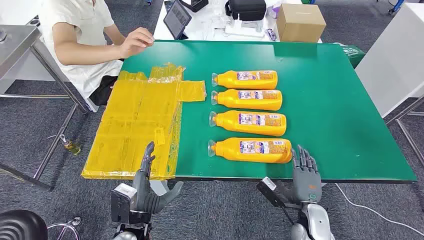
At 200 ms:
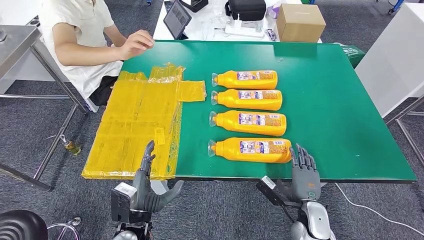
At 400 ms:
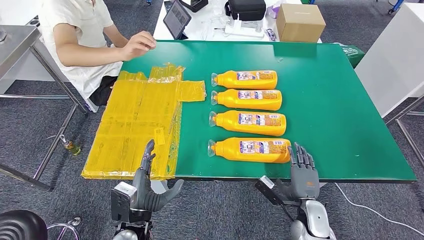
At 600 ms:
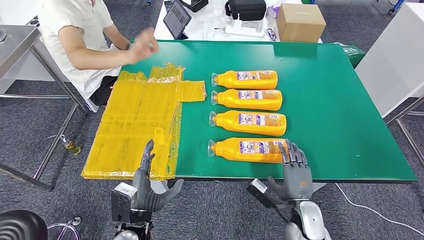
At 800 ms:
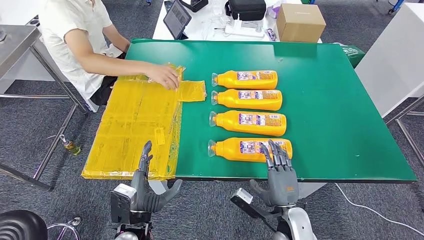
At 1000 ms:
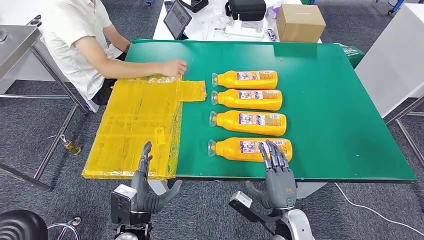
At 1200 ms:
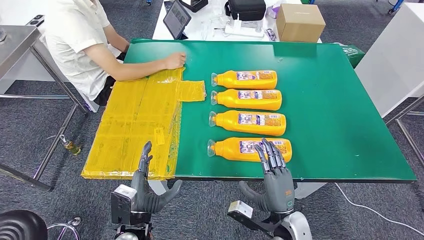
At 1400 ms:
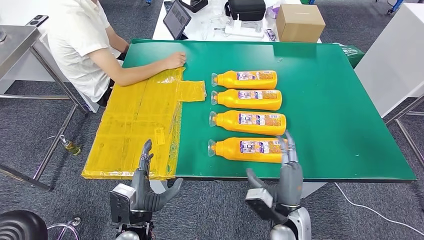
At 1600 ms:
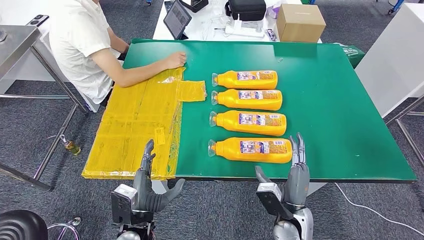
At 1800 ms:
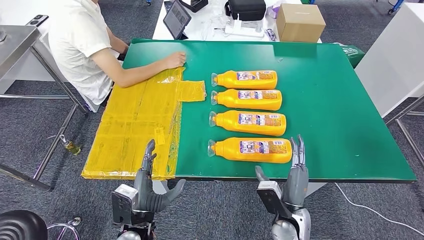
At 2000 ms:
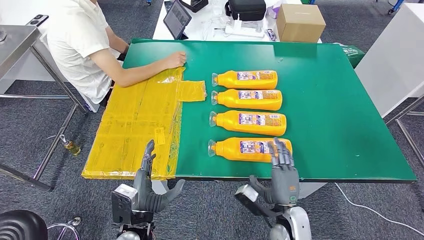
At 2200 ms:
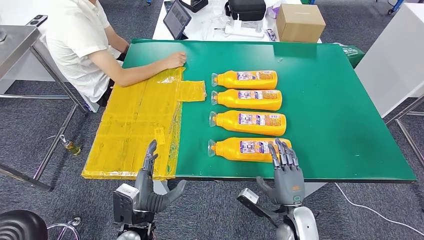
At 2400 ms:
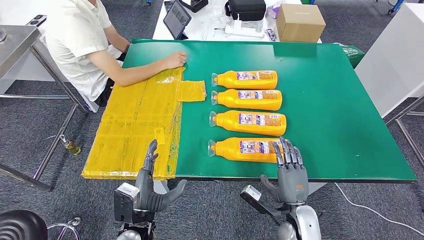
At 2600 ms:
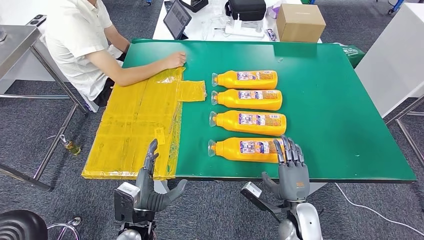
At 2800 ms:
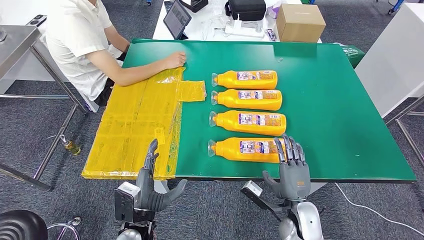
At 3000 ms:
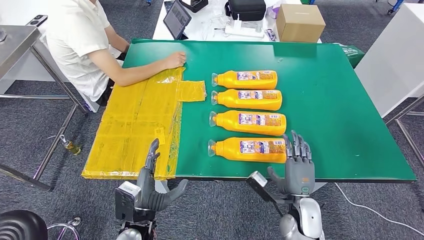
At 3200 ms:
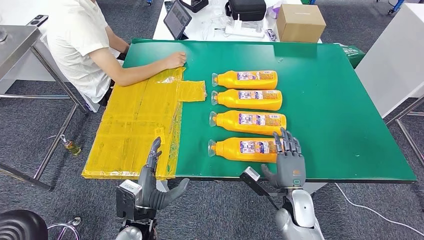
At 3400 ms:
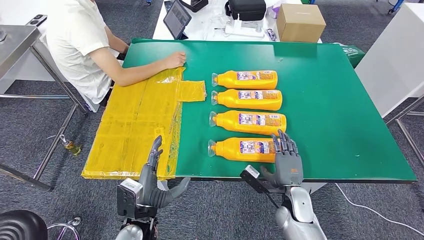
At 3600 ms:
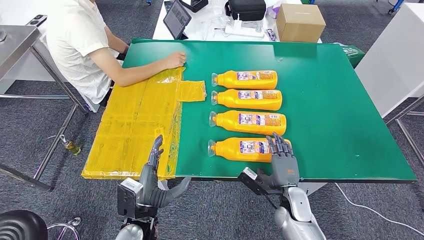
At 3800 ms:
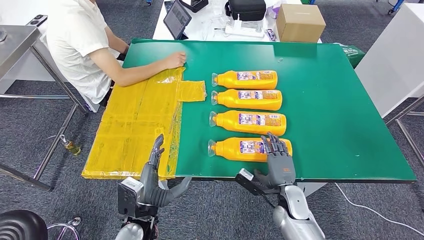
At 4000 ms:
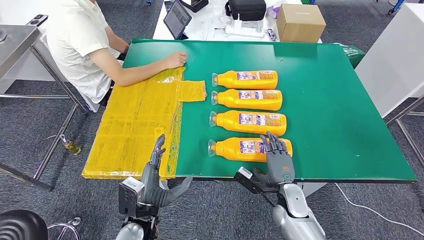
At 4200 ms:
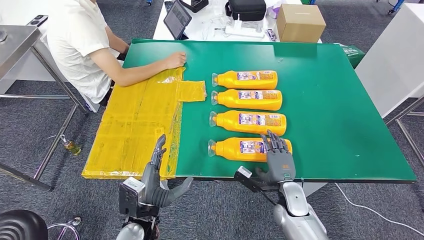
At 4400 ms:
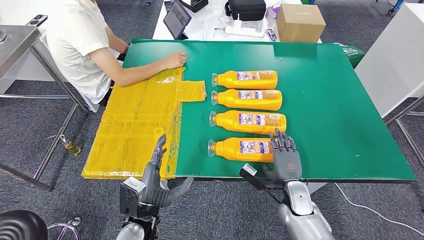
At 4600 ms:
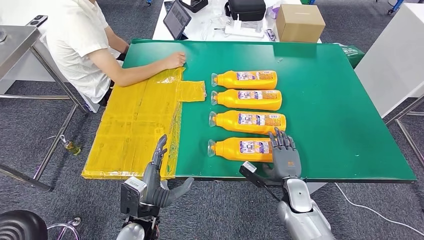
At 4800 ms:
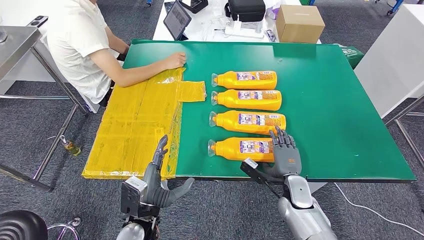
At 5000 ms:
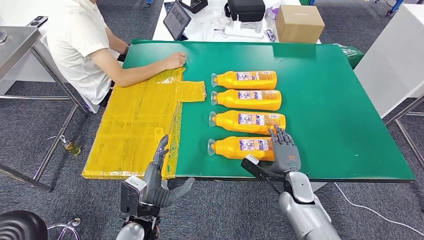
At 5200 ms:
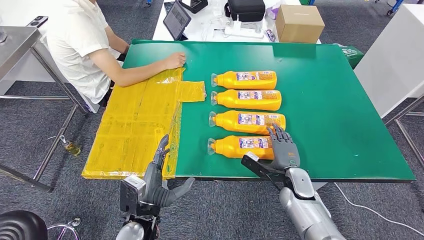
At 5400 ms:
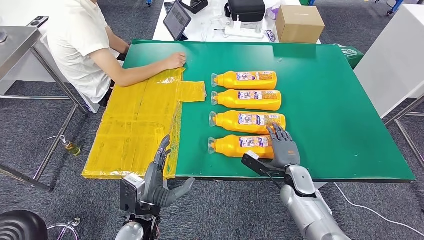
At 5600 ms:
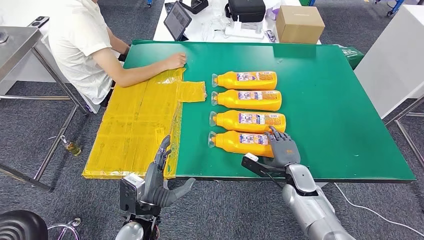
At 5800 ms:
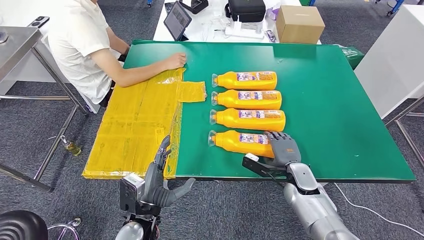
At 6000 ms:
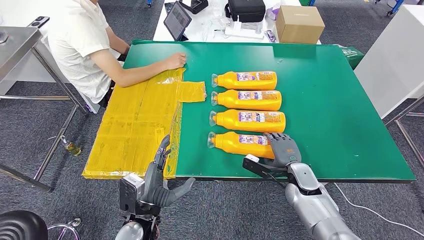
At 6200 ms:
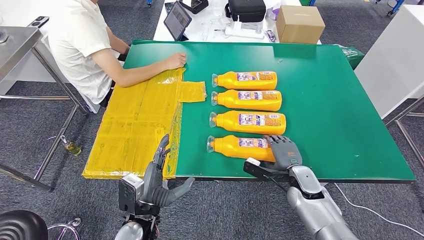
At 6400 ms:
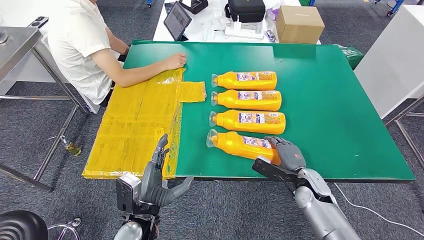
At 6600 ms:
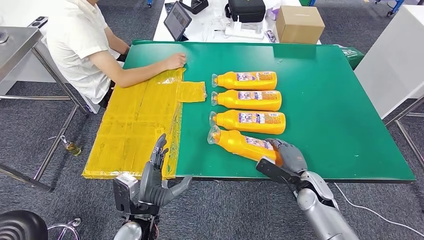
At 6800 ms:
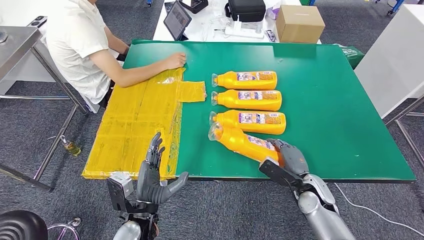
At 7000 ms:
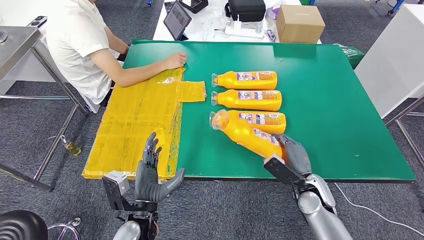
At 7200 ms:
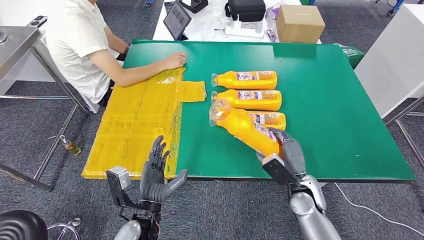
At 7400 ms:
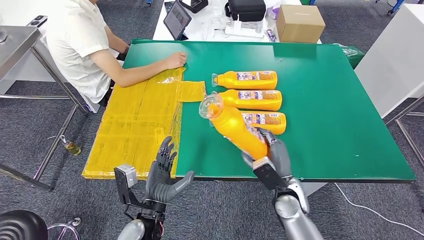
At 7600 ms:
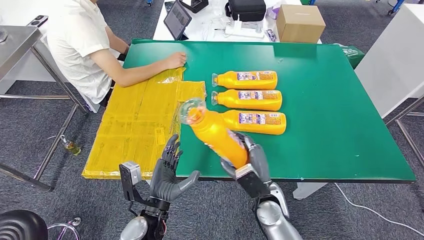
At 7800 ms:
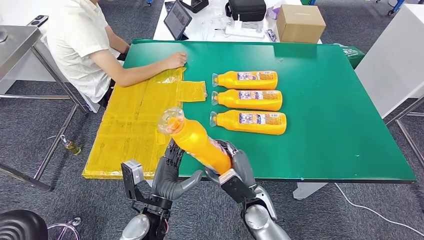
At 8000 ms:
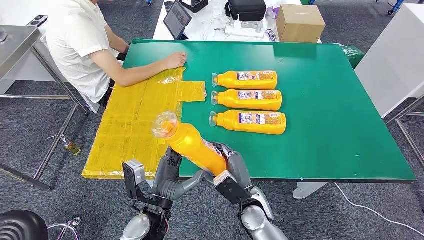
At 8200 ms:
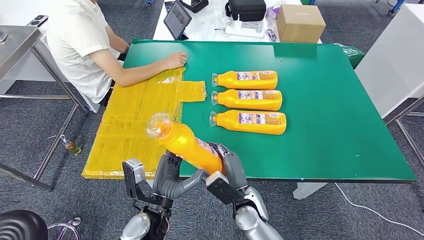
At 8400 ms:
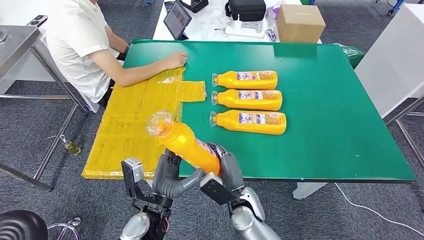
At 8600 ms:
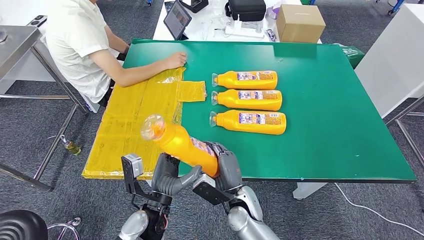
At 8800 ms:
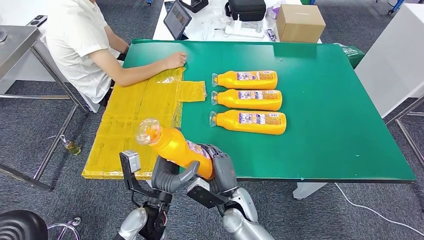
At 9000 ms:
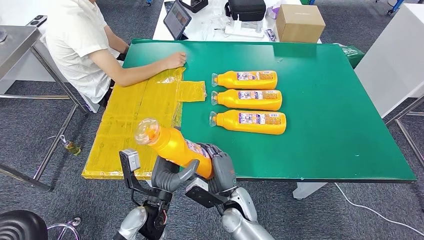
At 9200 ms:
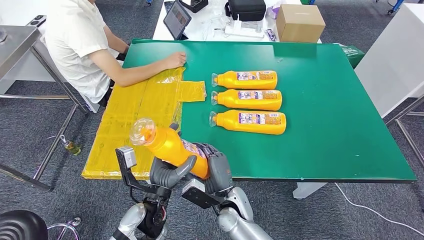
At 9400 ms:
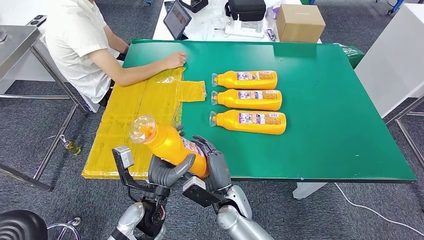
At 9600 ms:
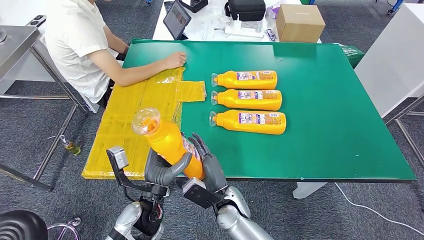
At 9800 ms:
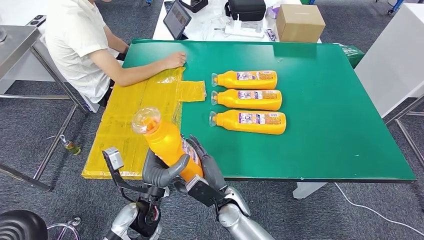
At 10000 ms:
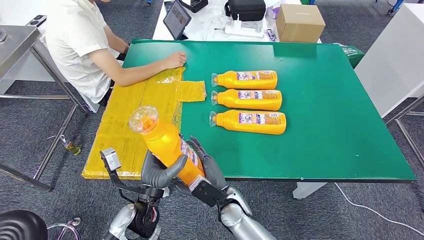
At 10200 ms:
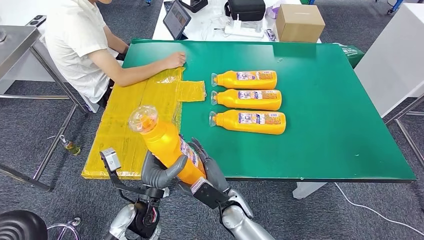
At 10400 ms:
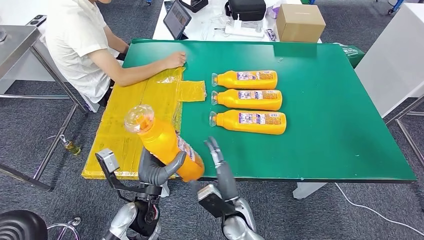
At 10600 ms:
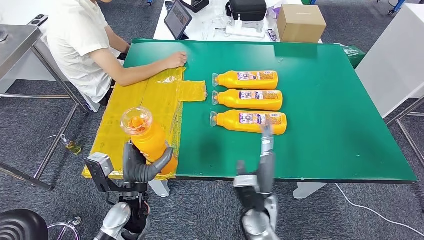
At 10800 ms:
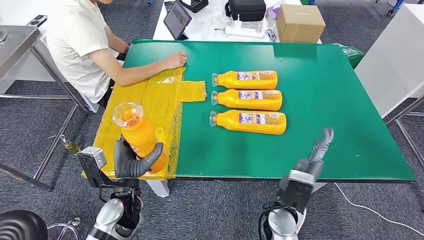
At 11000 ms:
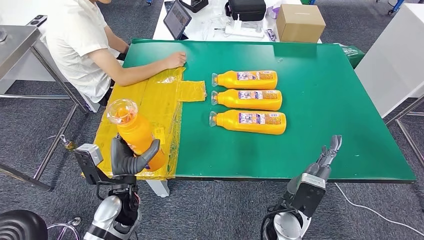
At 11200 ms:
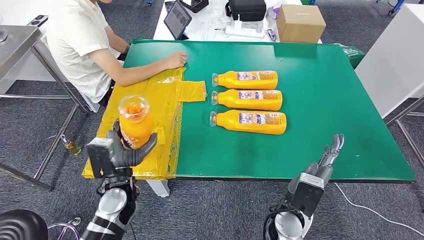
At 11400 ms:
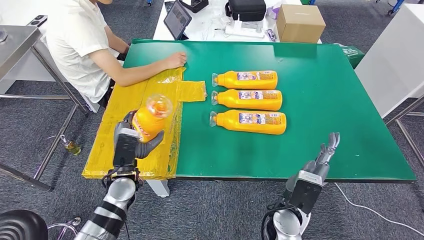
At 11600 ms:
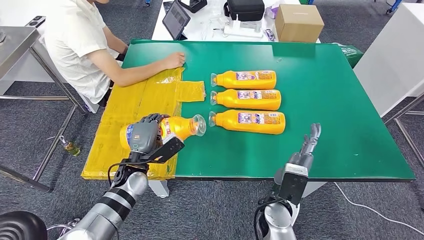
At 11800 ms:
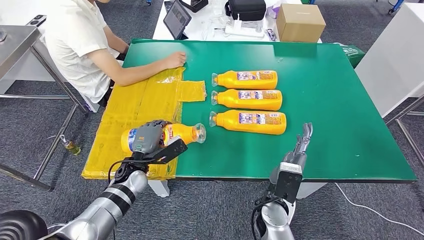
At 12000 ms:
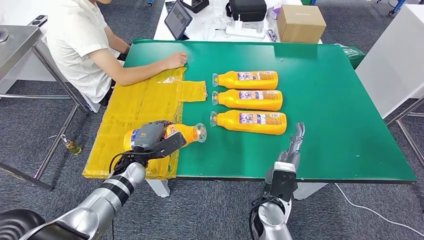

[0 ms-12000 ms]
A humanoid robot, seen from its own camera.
Step, 0 ms to 7000 ms: Take the fast-moving consumer goods bottle from the table.
3000 ms to 4400 ms: The right hand shifts by roughly 5 cm.
4400 ms to 6000 ms: The right hand moves roughly 5 cm.
6000 ms to 7600 ms: The right hand moves to the left and backward, approximately 15 cm.
7600 ms to 9000 ms: The right hand heads to the left, covering some 10 cm.
10400 ms to 12000 ms: The right hand travels to the right and upward by some 10 cm. Meanwhile the left hand is displaced forward and to the left by some 15 cm.

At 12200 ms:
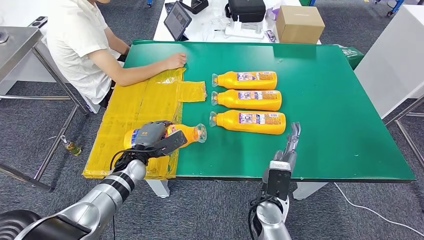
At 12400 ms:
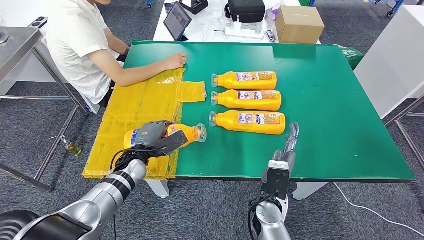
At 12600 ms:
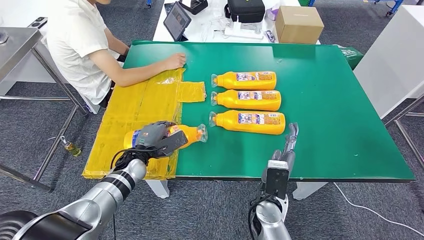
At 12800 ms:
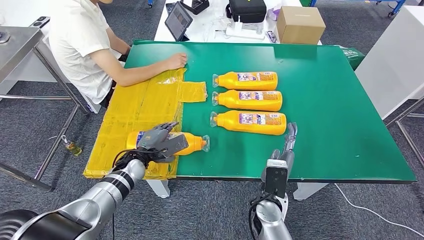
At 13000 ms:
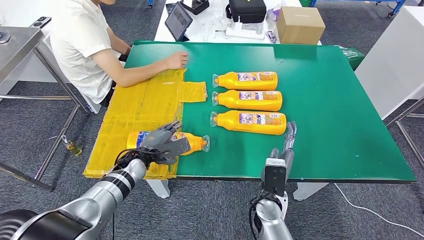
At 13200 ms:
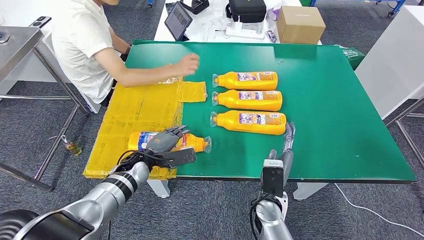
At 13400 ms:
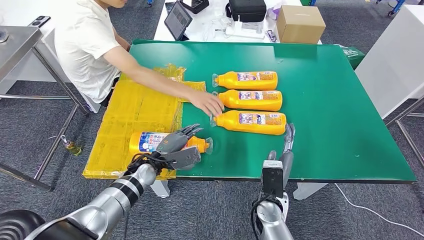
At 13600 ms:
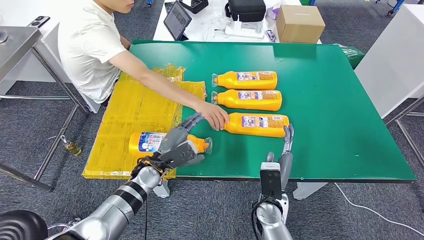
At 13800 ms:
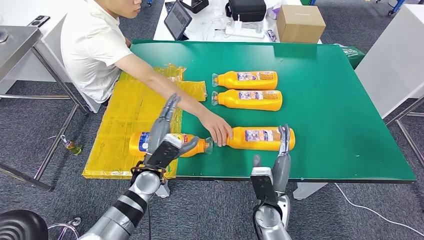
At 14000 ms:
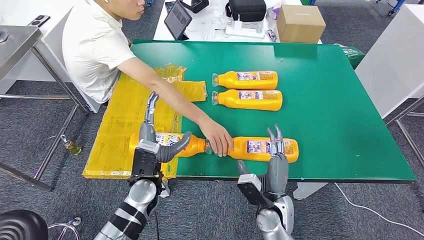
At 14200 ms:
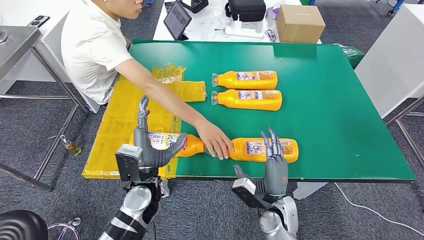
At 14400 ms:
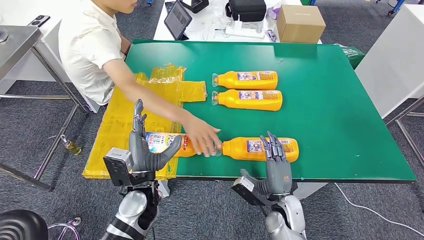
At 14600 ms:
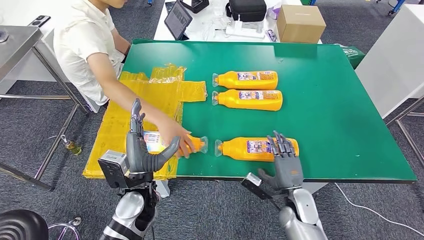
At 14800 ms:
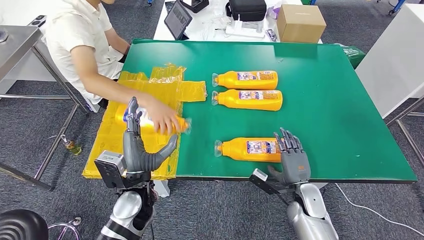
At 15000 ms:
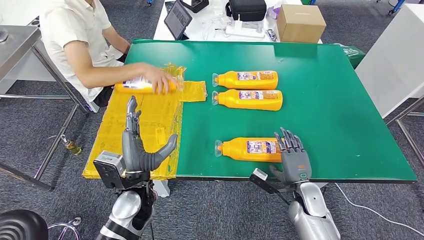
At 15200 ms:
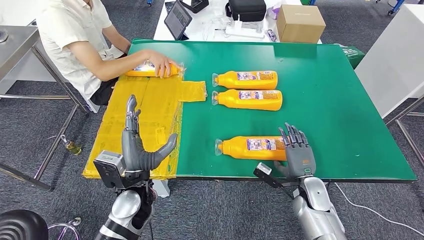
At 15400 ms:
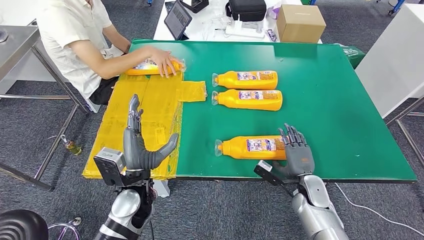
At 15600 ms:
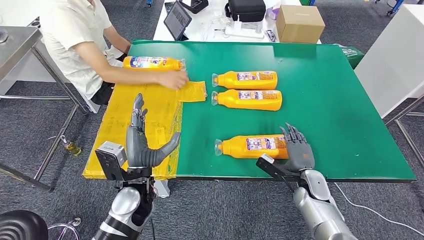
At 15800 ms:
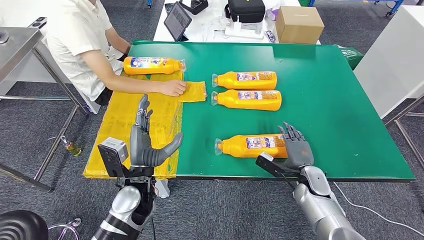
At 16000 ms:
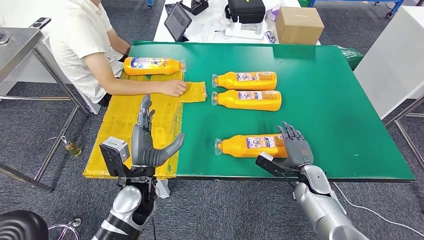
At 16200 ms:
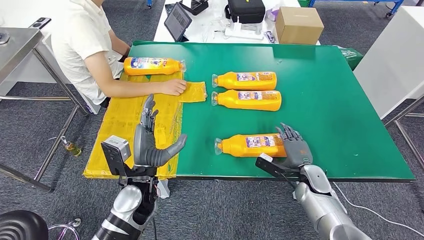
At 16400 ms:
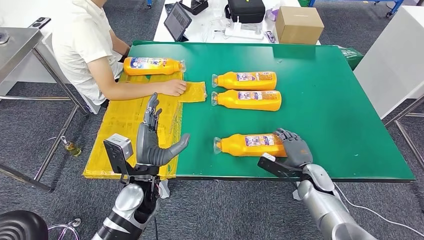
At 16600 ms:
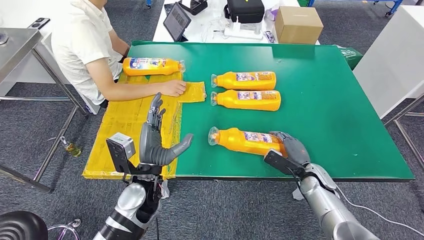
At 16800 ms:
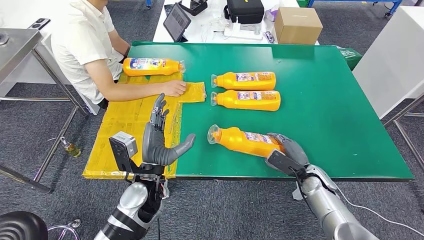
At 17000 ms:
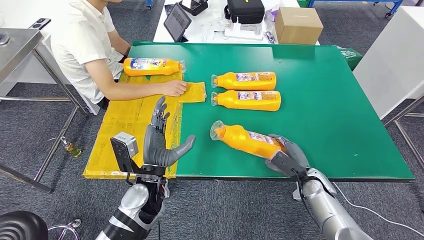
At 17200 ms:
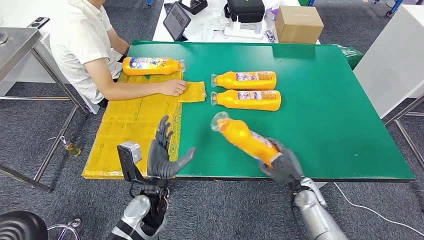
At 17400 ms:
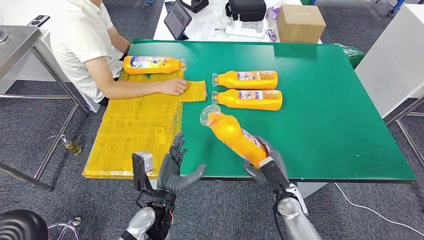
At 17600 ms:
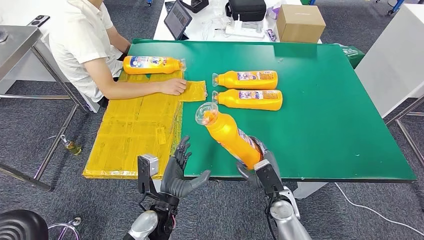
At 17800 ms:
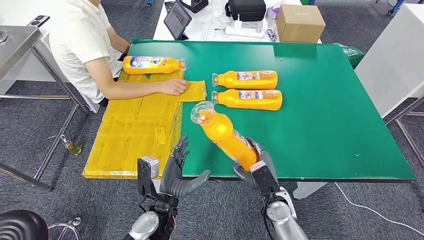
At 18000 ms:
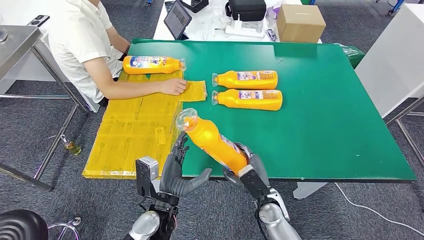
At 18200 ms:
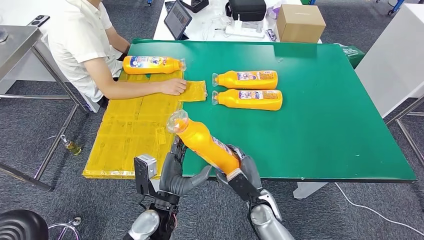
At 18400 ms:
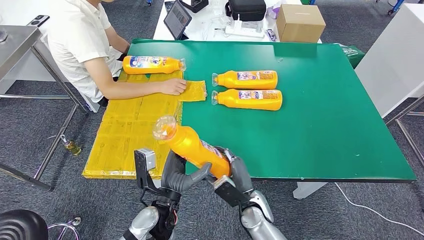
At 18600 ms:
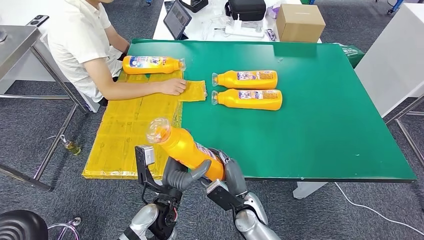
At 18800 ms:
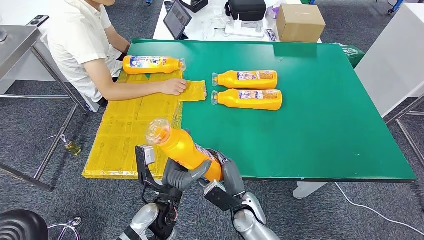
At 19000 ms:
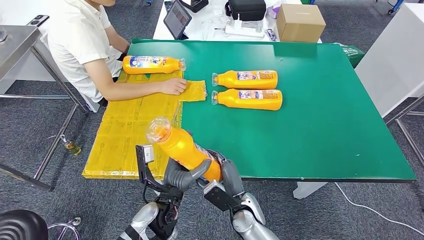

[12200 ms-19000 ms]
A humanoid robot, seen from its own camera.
Step, 12200 ms to 14200 ms: Flip the fast-moving consumer goods bottle to the front side.
12200 ms to 13600 ms: The left hand travels to the right by about 5 cm.
17600 ms to 19000 ms: The right hand goes about 10 cm to the left.
